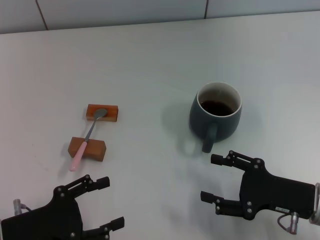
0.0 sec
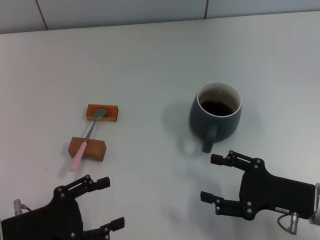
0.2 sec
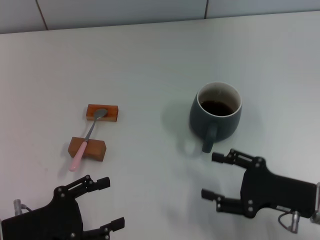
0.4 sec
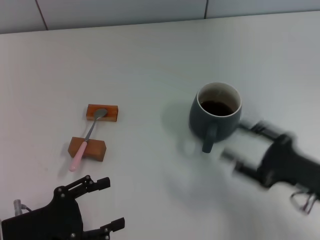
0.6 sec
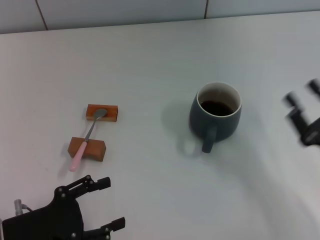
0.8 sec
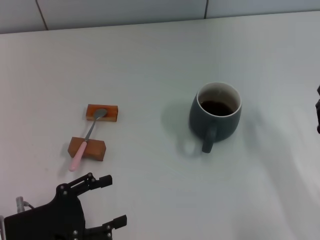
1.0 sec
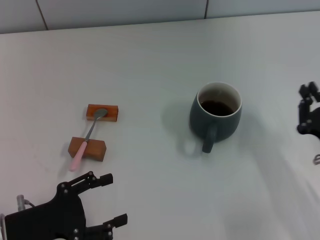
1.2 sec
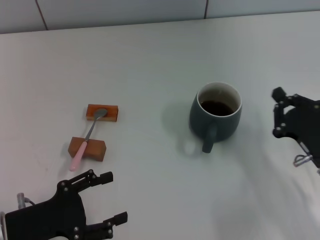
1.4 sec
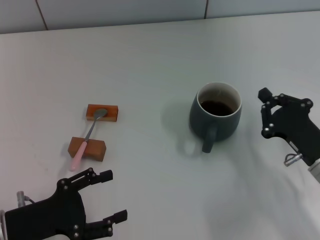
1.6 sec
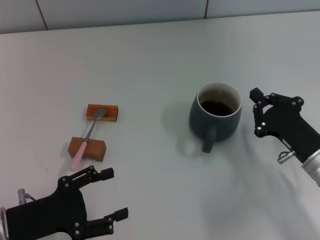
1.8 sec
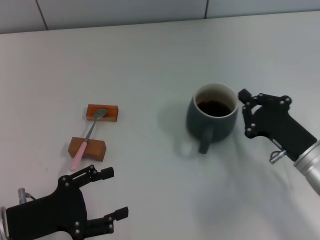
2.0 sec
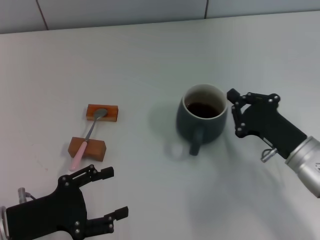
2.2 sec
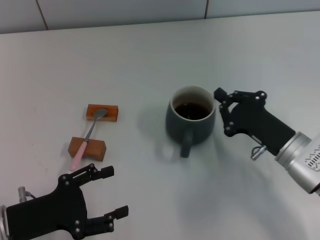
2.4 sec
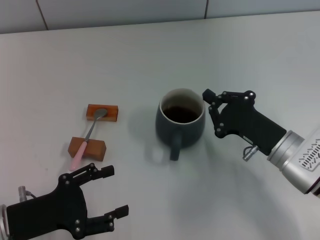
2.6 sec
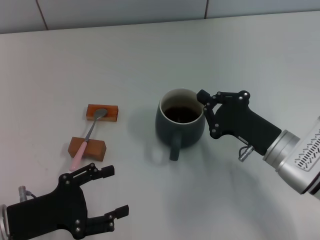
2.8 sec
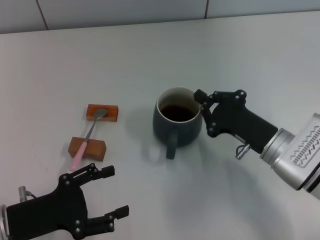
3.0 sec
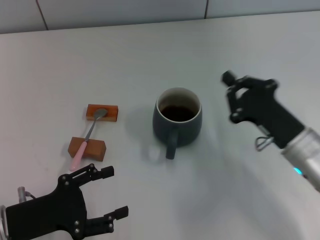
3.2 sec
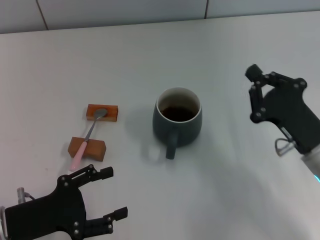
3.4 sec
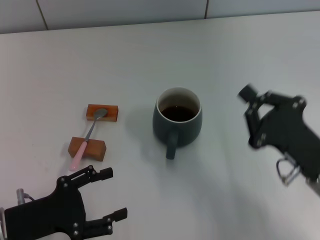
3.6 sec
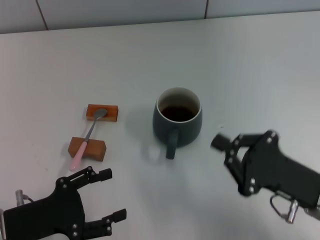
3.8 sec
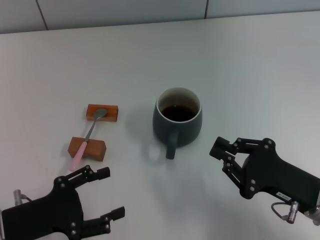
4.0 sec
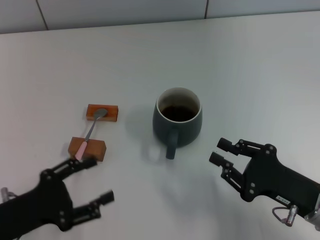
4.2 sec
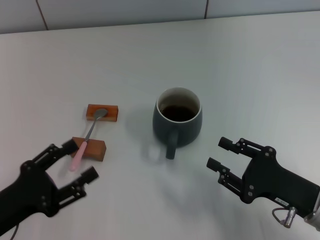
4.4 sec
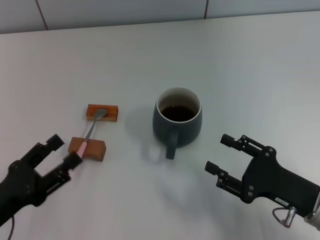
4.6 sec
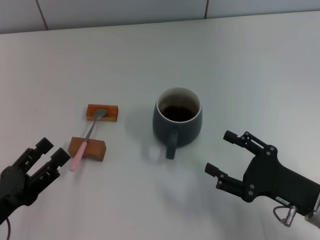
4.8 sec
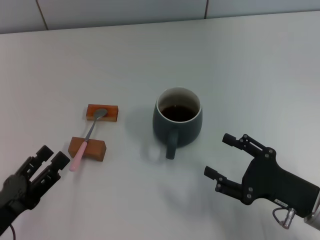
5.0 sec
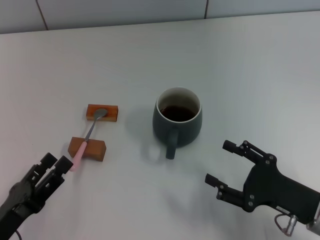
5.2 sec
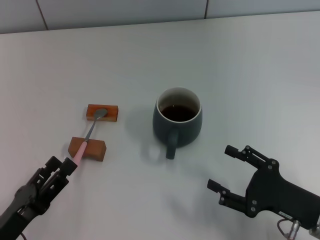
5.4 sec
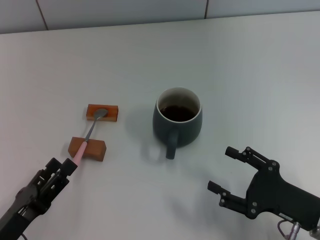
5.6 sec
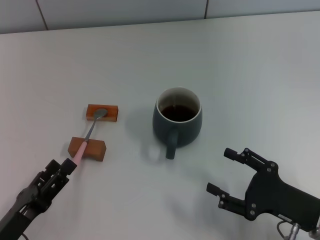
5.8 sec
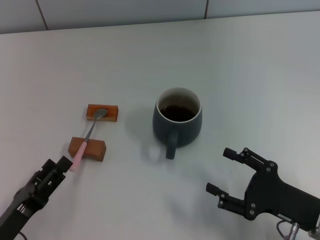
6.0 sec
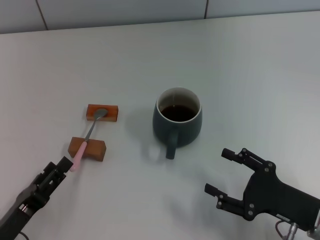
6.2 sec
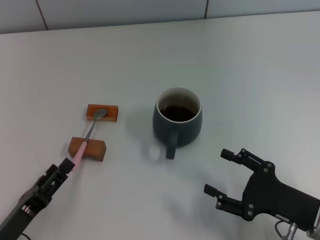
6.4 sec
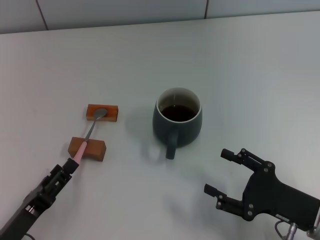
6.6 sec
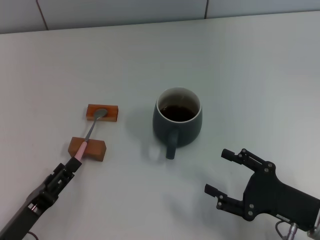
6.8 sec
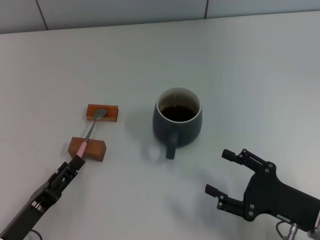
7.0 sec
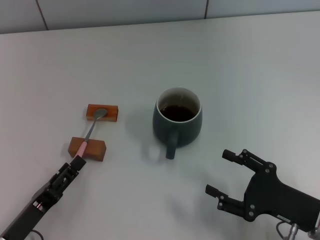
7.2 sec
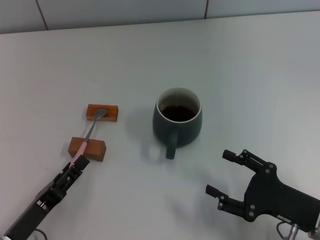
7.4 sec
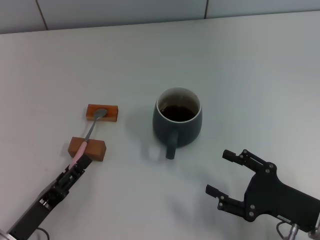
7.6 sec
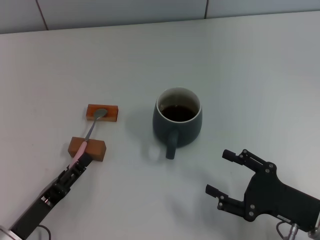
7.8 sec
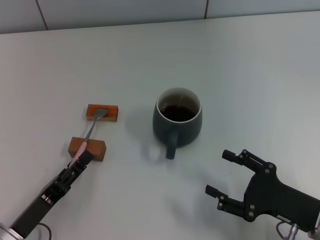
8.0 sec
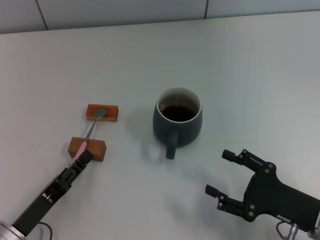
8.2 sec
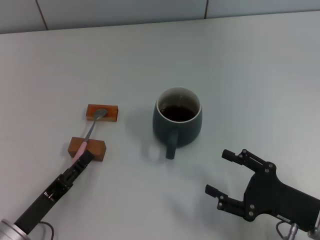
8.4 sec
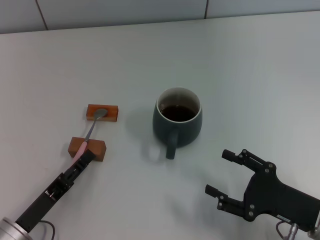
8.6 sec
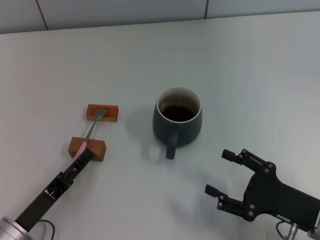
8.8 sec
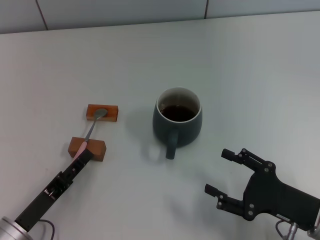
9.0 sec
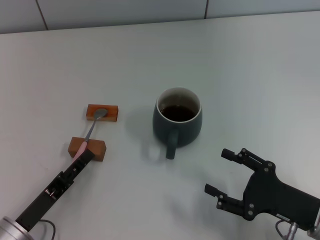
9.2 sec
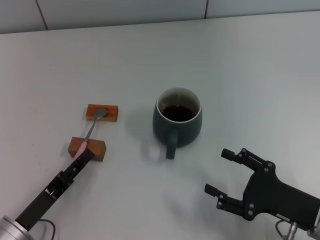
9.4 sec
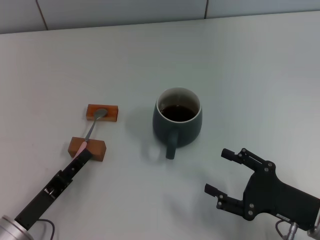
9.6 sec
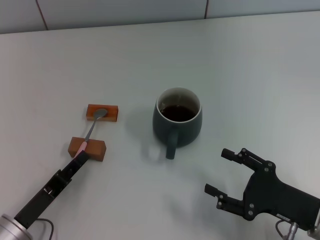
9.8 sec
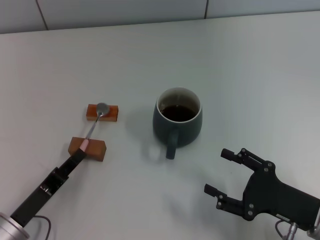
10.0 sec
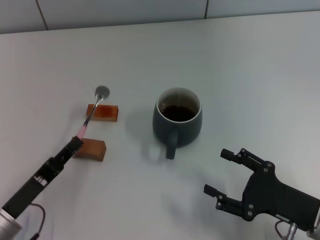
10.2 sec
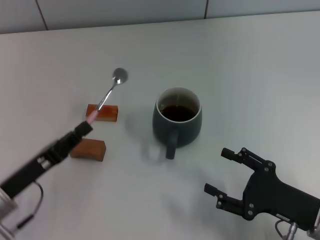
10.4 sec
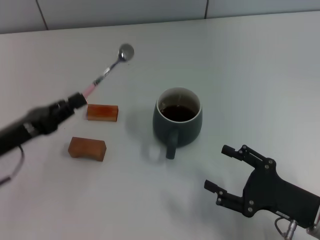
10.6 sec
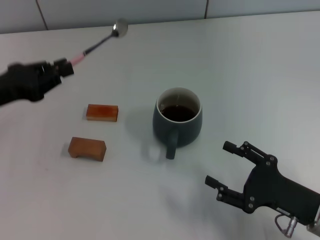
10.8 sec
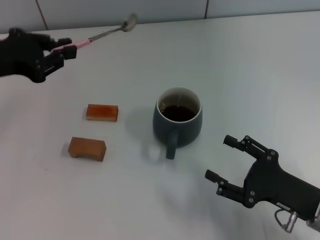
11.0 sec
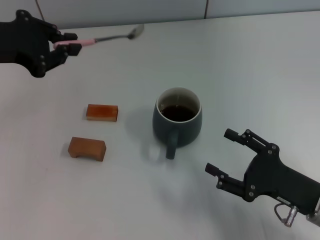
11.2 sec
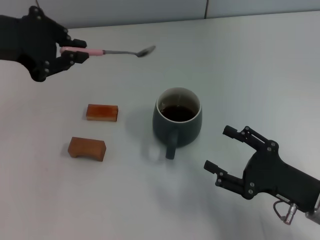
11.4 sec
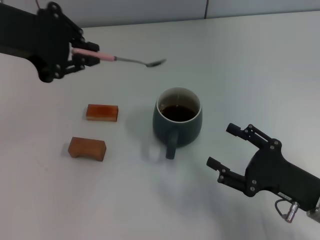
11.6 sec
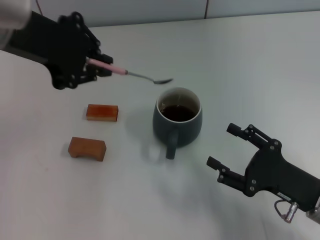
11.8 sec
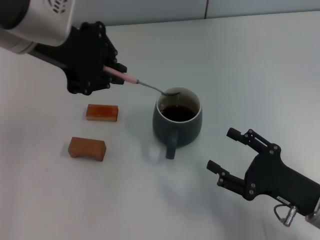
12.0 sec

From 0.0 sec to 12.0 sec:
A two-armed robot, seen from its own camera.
Task of the whole recording: Move the grey cup to the center, lift the pink spoon, stir it three times in the cup, and put the spoon into the cup.
Step, from 0.0 sec to 3.0 sec: Move the cup with coffee to the center of view with the right gripper.
Step, from 3.2 sec to 10.2 sec: Pick up the spoon with the left gripper.
From 0.0 sec to 1.6 sec: The right gripper closes its fingers.
From 1.6 sec to 3.0 sec: The right gripper travels to the left by about 5 cm.
From 3.0 sec to 4.4 sec: The right gripper heads backward, covering roughly 10 cm.
From 4.4 sec to 6.0 sec: The right gripper opens up; the left gripper changes place by approximately 5 cm.
From 6.0 sec to 9.0 sec: The grippers stay close to where they were, moving slightly.
From 9.0 sec to 10.4 sec: The left gripper travels forward by about 5 cm, and closes its fingers.
From 10.4 sec to 12.0 sec: The left gripper heads upward, forward and to the right, covering approximately 30 cm.

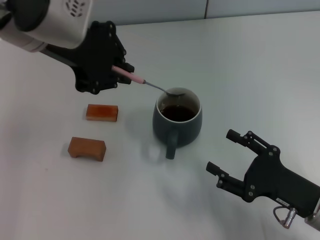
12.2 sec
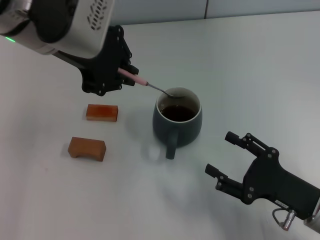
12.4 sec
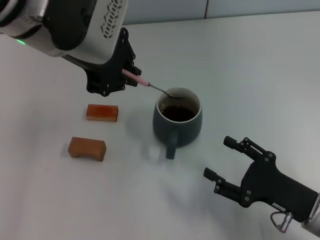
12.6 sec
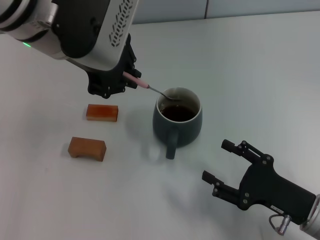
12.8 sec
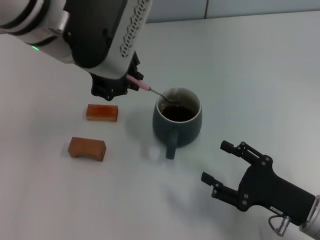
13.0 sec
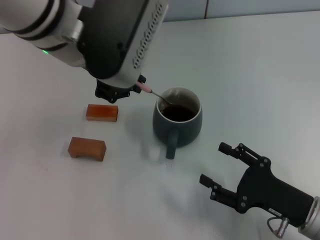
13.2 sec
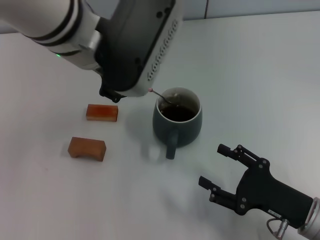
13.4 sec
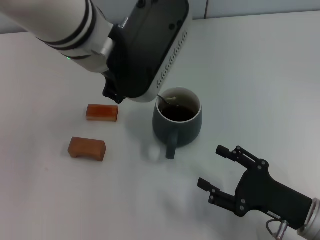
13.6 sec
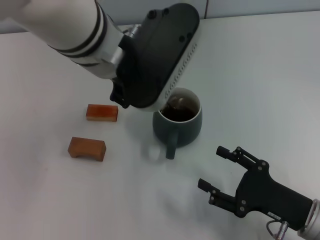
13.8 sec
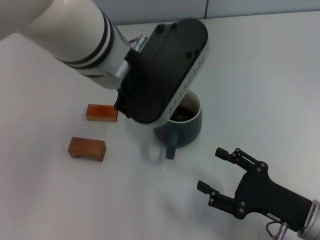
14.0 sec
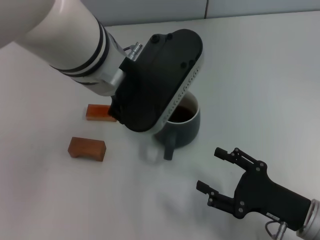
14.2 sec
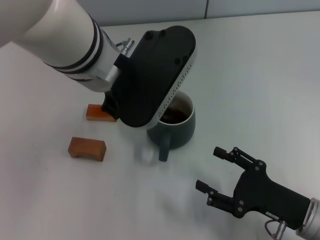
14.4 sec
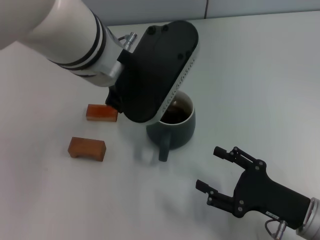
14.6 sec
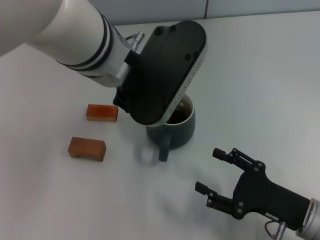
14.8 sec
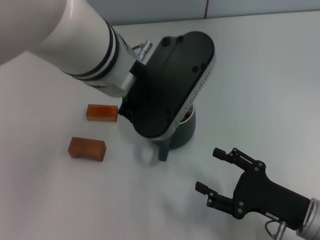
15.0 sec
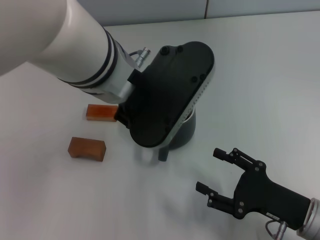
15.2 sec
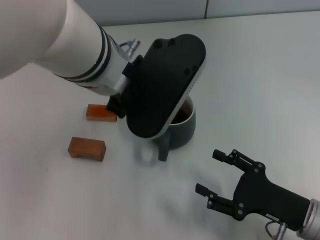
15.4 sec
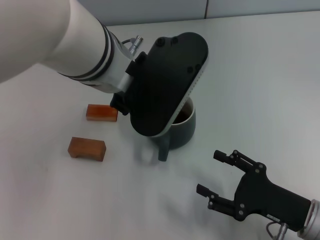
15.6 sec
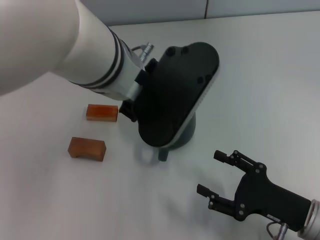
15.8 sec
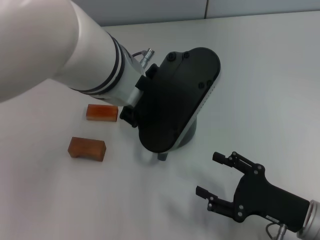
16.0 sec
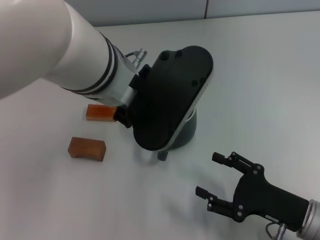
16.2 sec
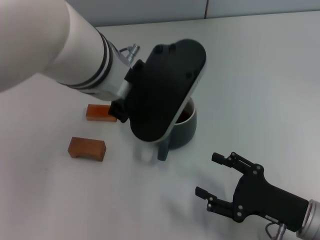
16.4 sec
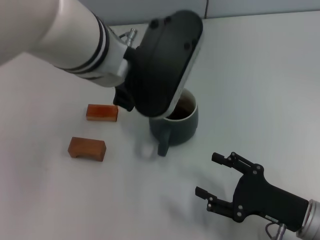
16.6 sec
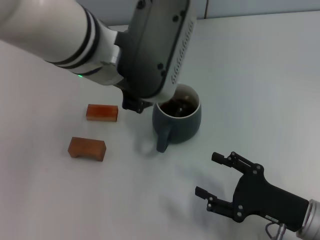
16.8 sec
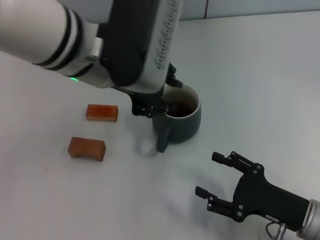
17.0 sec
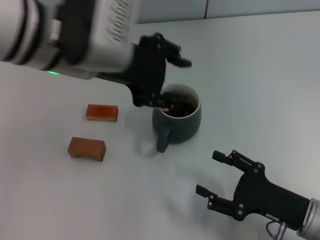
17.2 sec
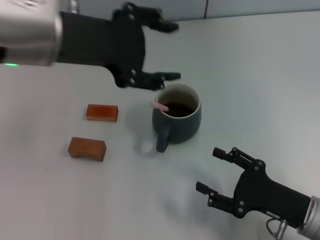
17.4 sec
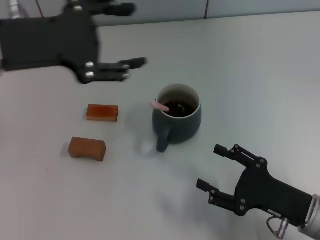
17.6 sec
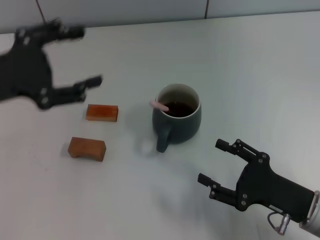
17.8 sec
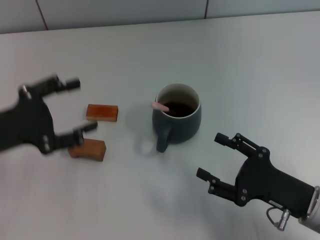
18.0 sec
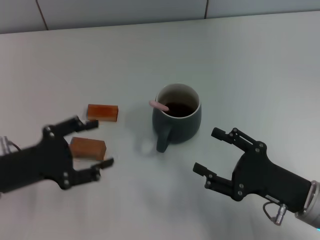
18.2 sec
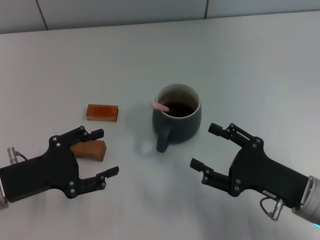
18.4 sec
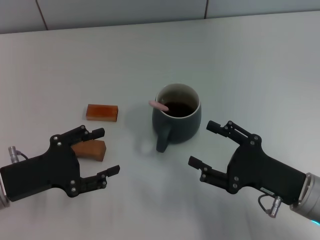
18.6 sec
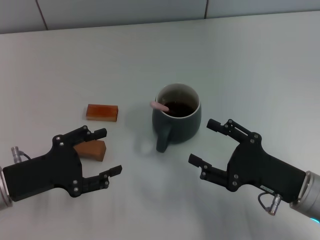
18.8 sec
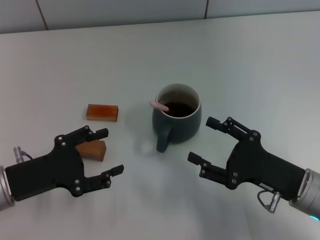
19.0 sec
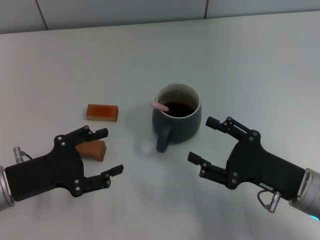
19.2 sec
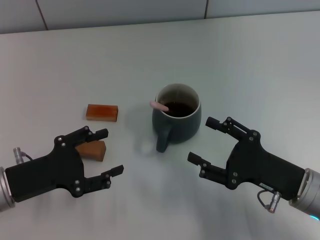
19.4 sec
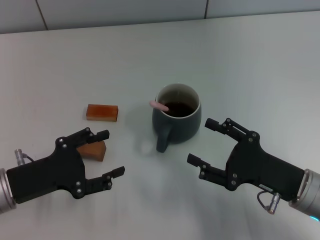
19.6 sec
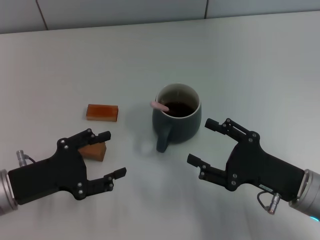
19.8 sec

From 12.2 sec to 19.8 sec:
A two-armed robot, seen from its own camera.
Task of the whole recording: Move the grey cup to the center, lift the pink spoon, stir it three times in the cup, and put the spoon into the cup.
Step, from 12.2 sec to 17.8 sec: Stir the coffee in the cup with the left gripper.
From 12.2 sec to 13.8 sec: The left gripper shifts about 5 cm to the right.
From 16.8 sec to 18.2 sec: The left gripper goes approximately 25 cm to the left, downward and backward, and opens up.
From 18.2 sec to 19.8 sec: The grippers stay close to where they were, moving slightly.

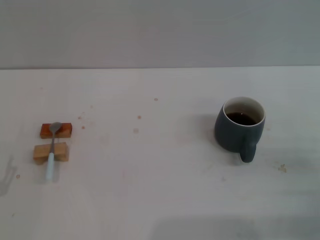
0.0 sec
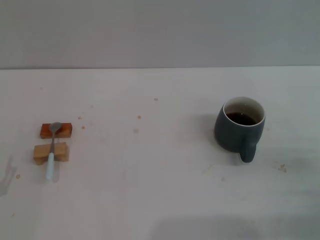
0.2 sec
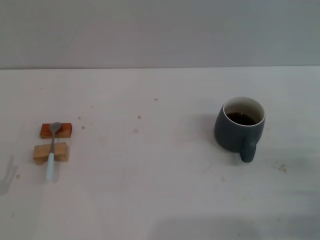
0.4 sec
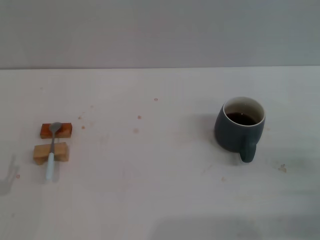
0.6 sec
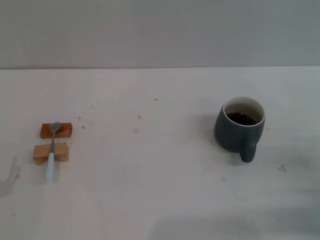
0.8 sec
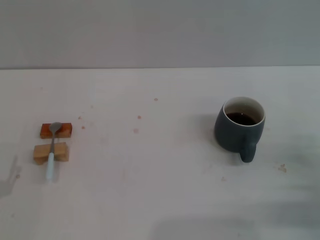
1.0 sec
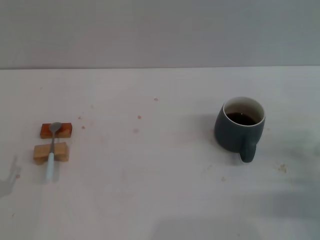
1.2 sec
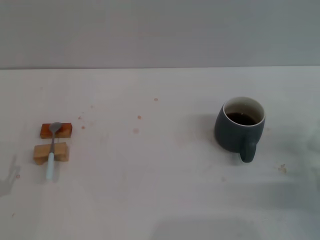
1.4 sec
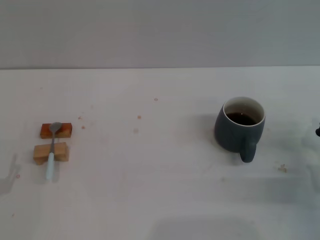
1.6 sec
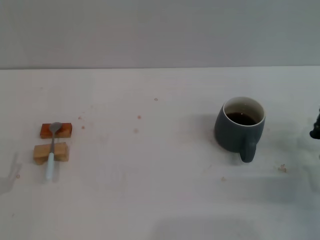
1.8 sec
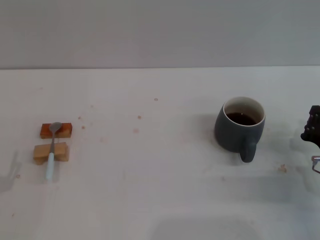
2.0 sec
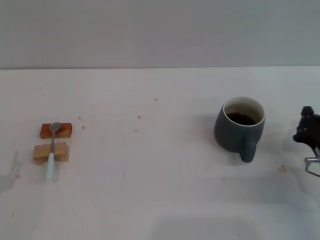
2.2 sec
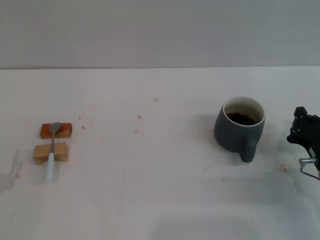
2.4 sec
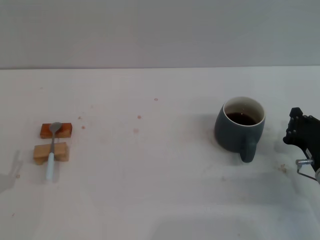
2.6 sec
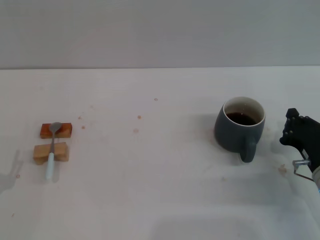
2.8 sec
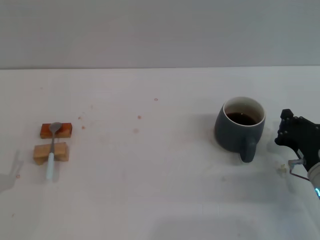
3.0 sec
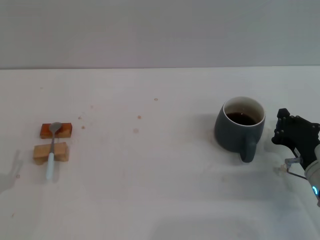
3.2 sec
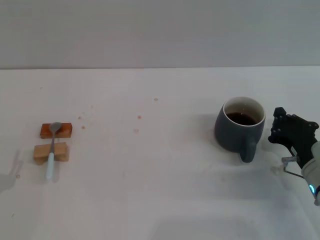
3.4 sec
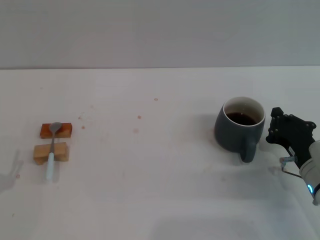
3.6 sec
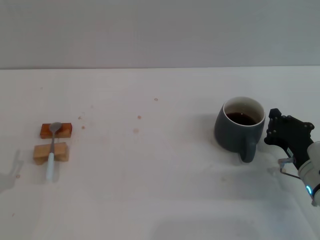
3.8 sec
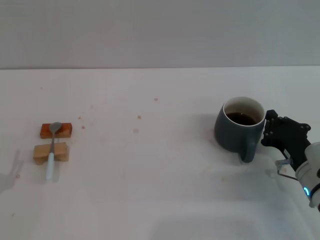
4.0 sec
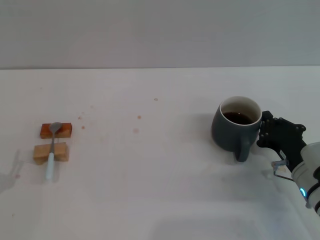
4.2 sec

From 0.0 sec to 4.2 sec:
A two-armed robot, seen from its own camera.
Task of the whole recording: Move the grey cup to the center, lift the blue spoon, stir it three times in the cup, and put the spoon into the cup.
From 1.4 sec to 2.8 sec: The grippers move only a little.
From 2.8 sec to 4.2 sec: The grippers move only a little.
